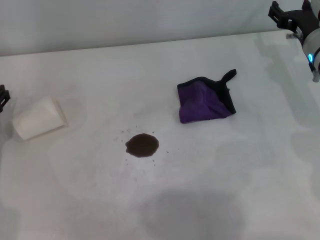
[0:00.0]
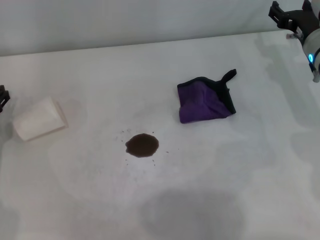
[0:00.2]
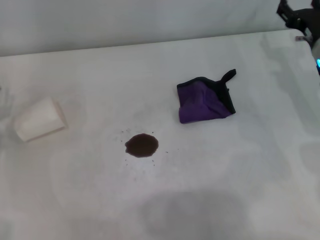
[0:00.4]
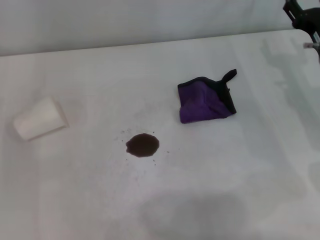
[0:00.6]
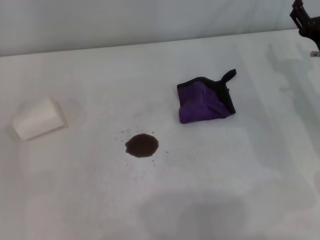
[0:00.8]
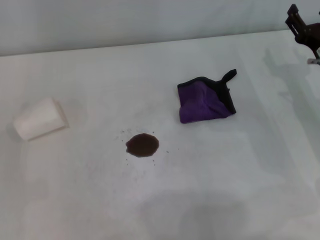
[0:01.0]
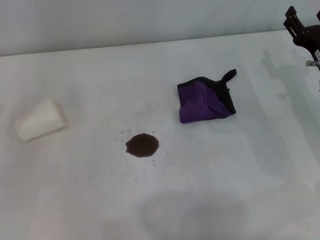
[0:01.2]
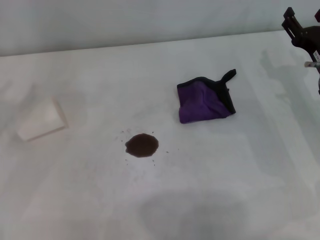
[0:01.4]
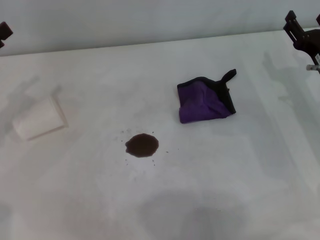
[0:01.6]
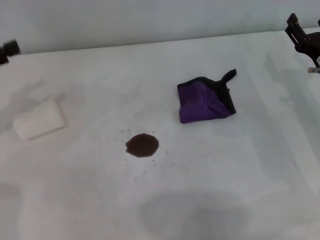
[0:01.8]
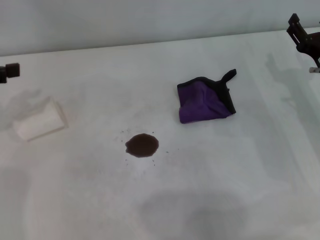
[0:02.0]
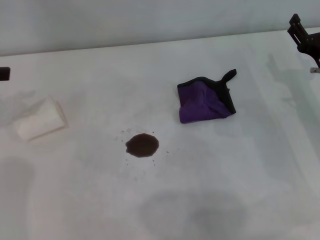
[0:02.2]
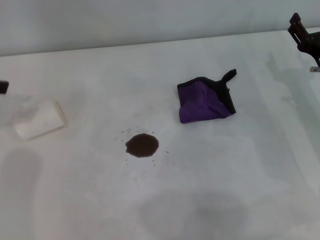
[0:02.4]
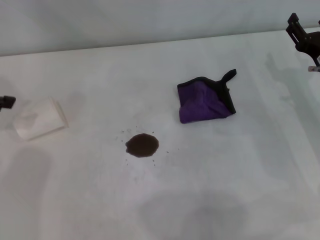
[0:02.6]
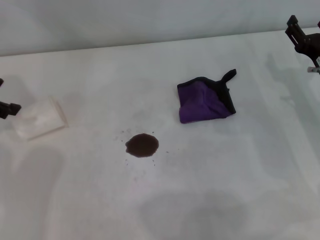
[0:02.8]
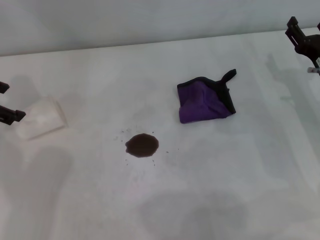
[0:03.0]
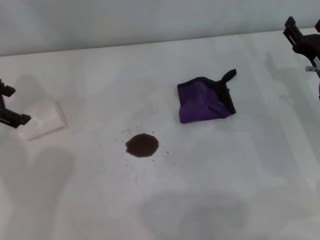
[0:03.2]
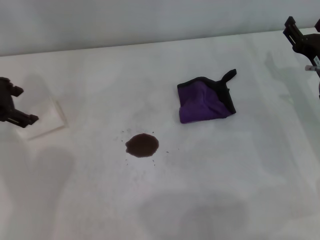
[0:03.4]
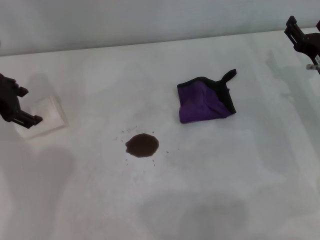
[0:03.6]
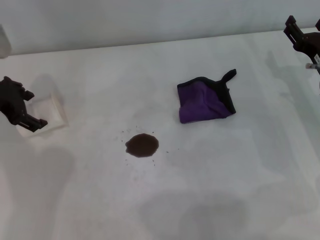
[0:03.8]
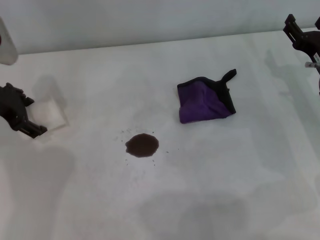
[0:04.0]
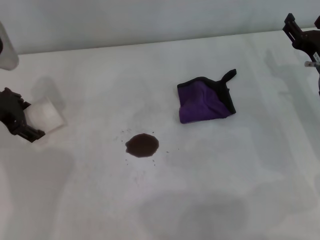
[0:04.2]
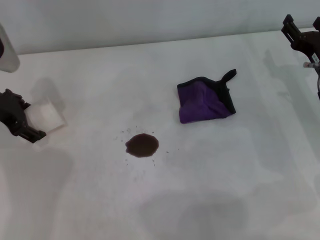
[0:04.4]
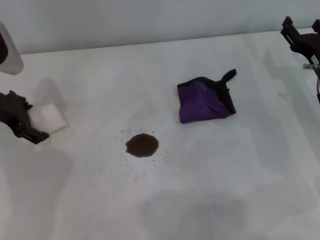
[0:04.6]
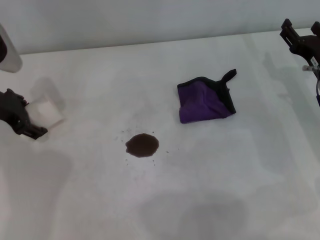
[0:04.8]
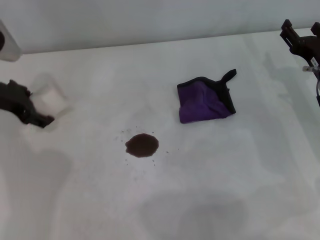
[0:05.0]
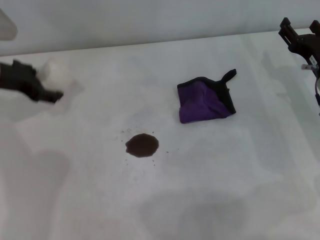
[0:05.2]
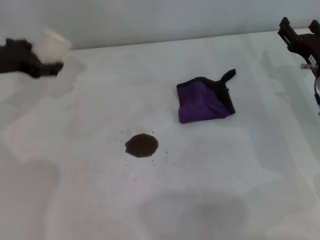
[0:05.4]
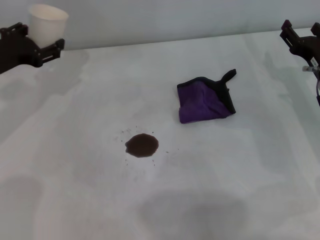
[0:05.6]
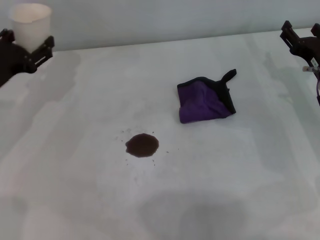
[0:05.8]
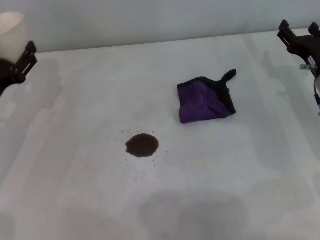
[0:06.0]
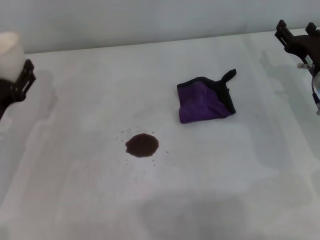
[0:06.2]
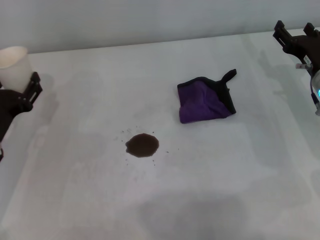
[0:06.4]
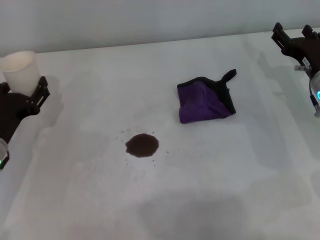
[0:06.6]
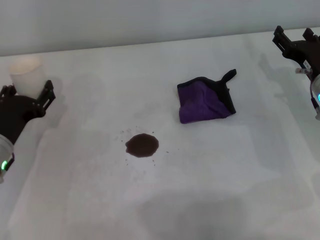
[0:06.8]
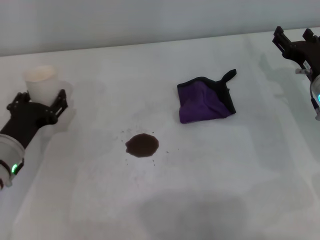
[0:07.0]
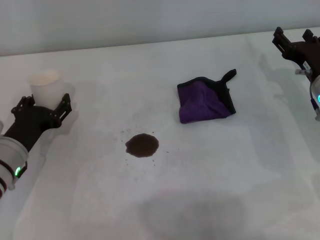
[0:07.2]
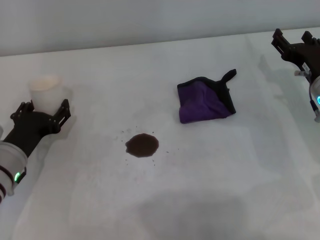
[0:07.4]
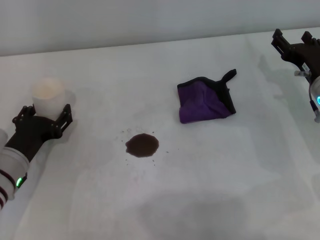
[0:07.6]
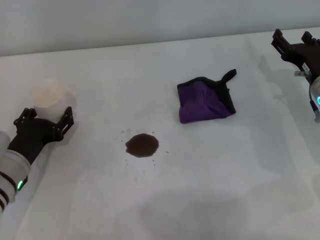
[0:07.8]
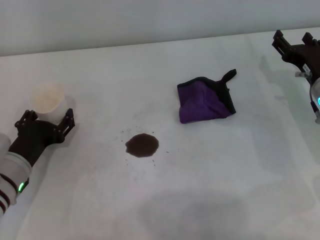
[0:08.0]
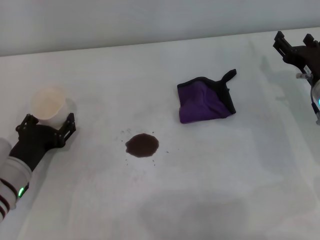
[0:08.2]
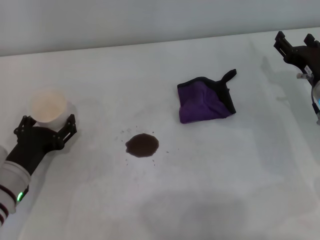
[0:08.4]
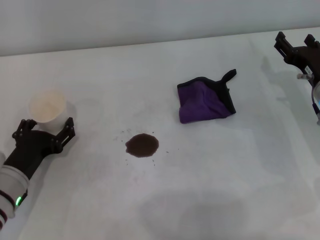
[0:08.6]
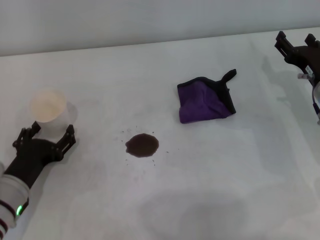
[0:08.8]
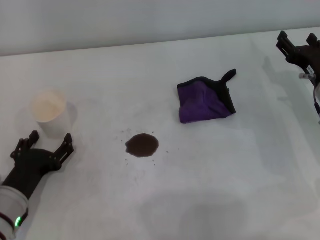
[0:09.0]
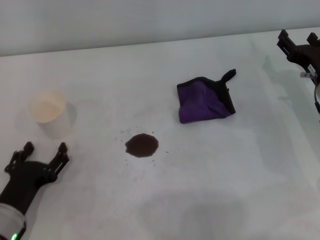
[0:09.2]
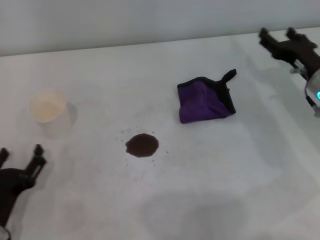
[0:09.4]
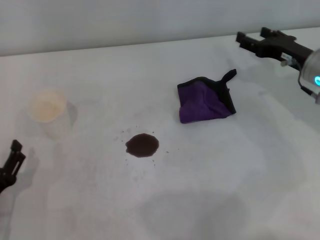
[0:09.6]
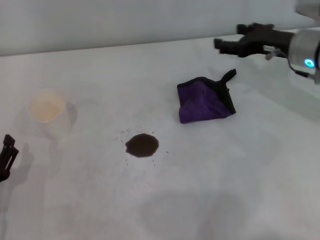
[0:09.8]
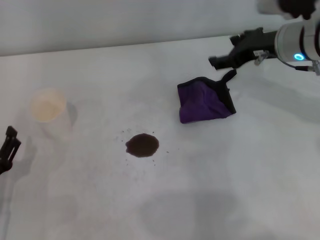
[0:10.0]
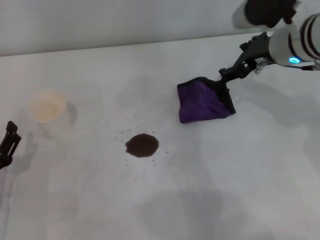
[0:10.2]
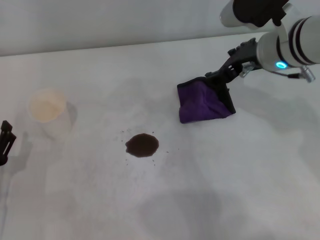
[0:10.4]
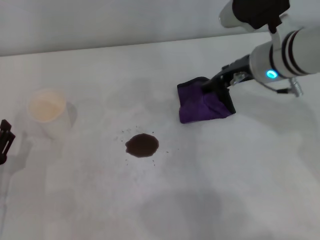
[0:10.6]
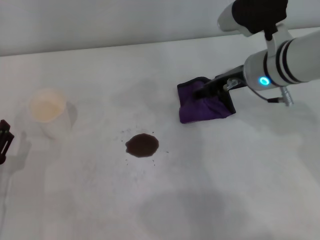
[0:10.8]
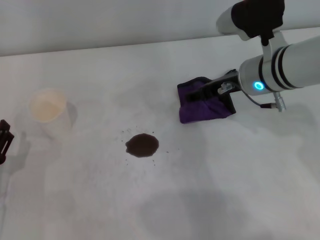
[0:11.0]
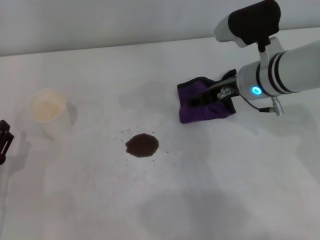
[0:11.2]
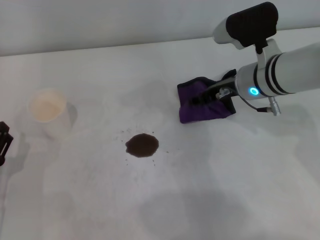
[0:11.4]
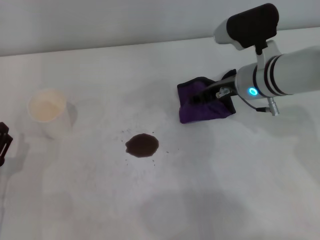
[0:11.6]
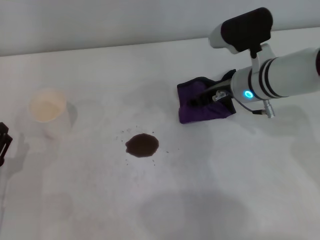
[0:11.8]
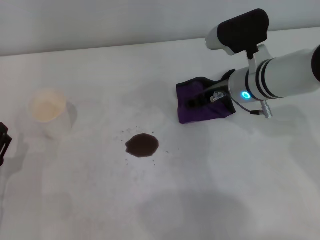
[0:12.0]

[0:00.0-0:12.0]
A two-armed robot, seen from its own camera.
Step, 0:00.0 to 0:04.6: Grasp the paper cup with the left gripper.
Step, 0:04.8 to 0:08.6: Stand the paper cup upright with the left gripper.
0:00.0 to 0:01.6: The left gripper is displaced upward by some 10 cm. The right gripper moves backward, some 10 cm.
0:01.6 to 0:03.0: The left gripper goes roughly 10 cm upward and forward.
0:03.0 to 0:04.4: The left gripper is displaced downward by approximately 5 cm.
0:04.4 to 0:06.0: The left gripper shifts about 10 cm downward and backward, and closes.
0:06.0 to 0:07.6: The left gripper moves downward, approximately 5 cm.
0:07.6 to 0:09.0: The left gripper is displaced backward by approximately 5 cm, and opens up.
0:09.0 to 0:10.4: The right gripper is displaced upward and to the left by approximately 15 cm. Meanwhile the left gripper ends up about 5 cm from where it was.
0:10.4 to 0:12.0: The right gripper is displaced downward by approximately 10 cm.

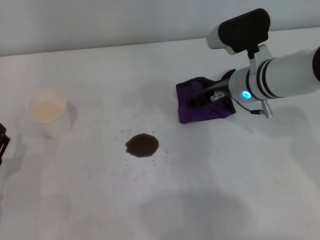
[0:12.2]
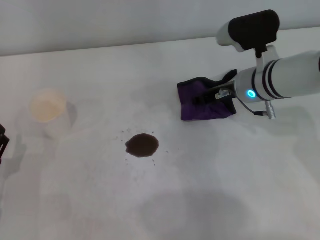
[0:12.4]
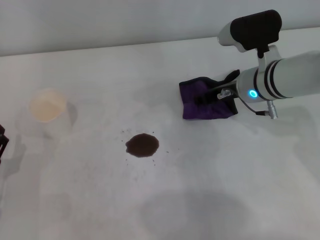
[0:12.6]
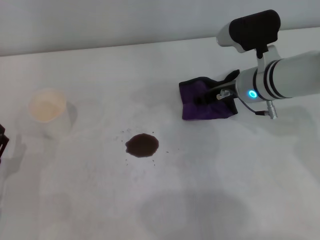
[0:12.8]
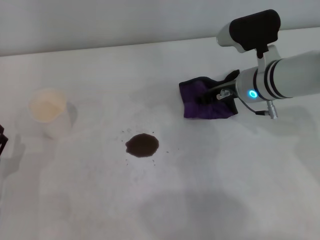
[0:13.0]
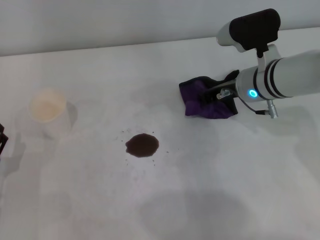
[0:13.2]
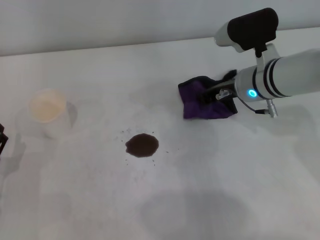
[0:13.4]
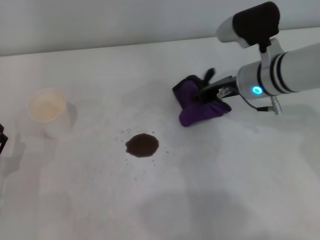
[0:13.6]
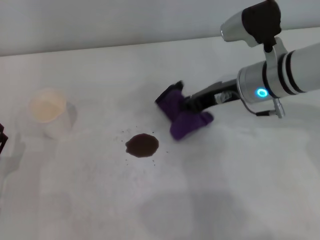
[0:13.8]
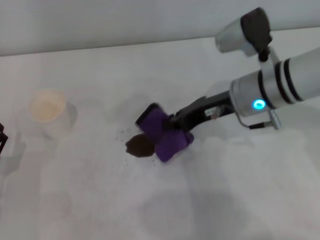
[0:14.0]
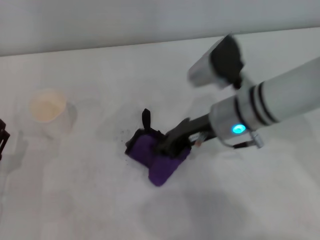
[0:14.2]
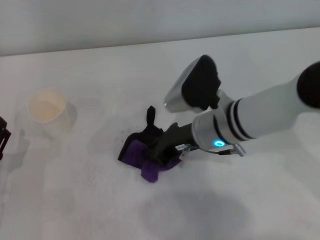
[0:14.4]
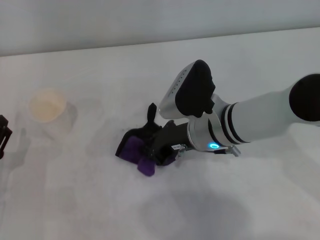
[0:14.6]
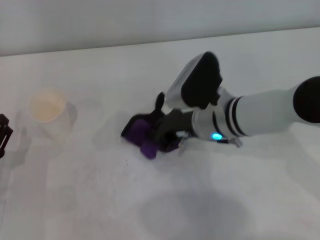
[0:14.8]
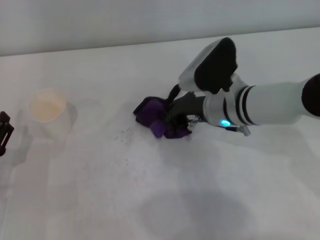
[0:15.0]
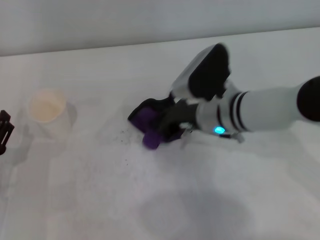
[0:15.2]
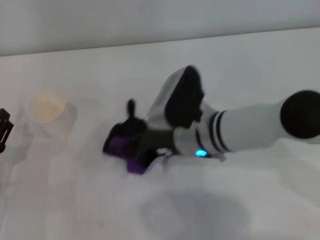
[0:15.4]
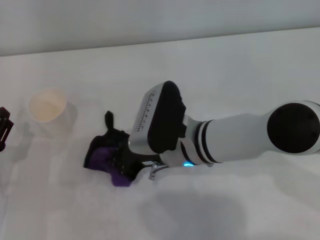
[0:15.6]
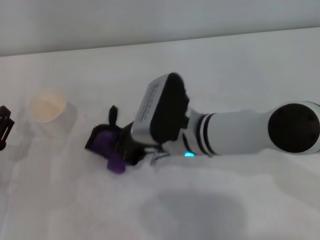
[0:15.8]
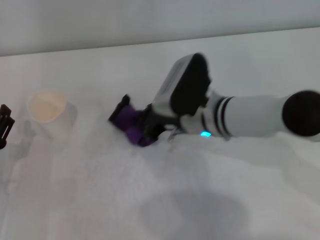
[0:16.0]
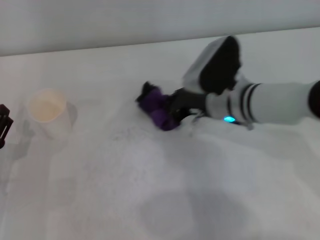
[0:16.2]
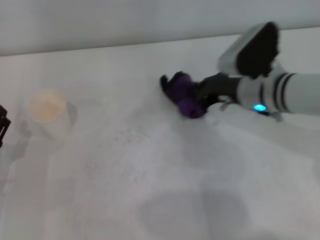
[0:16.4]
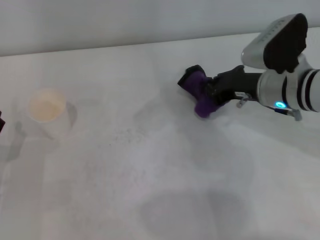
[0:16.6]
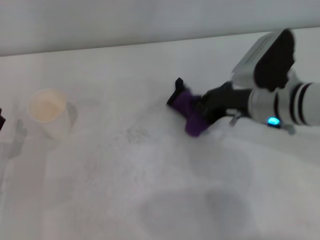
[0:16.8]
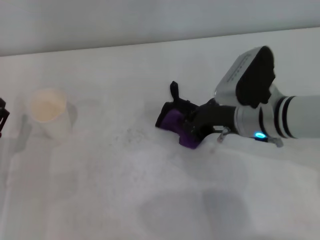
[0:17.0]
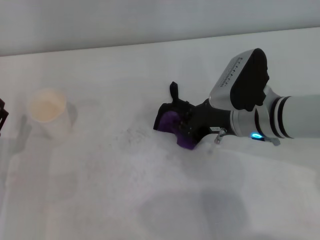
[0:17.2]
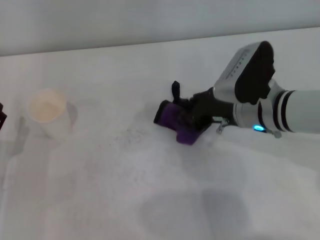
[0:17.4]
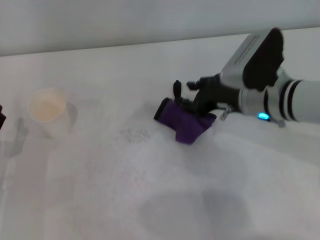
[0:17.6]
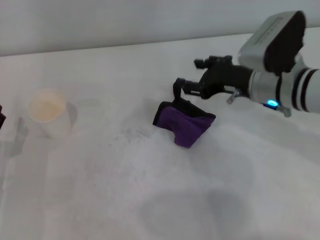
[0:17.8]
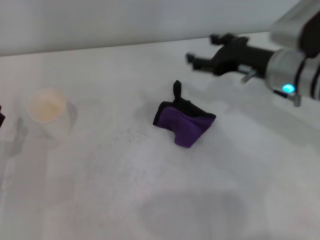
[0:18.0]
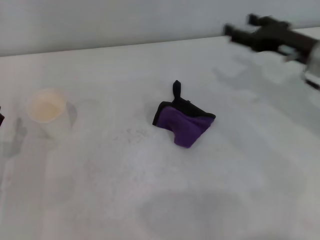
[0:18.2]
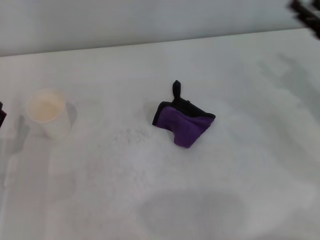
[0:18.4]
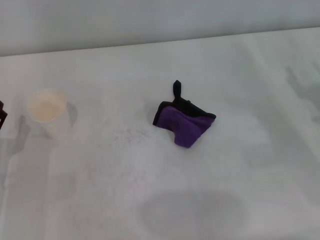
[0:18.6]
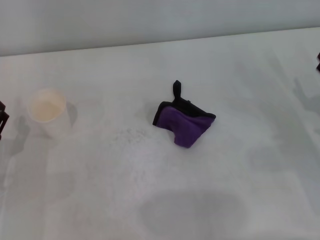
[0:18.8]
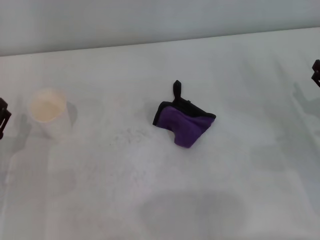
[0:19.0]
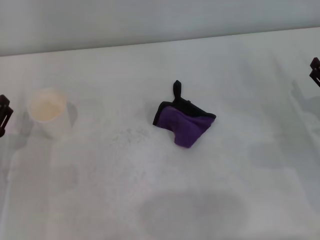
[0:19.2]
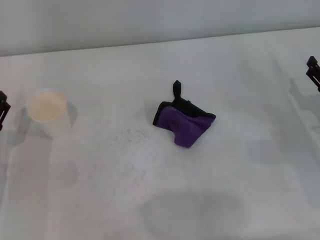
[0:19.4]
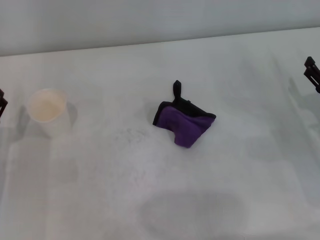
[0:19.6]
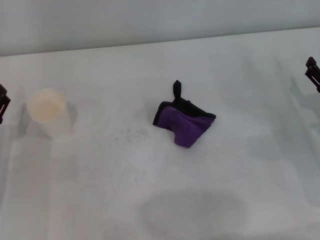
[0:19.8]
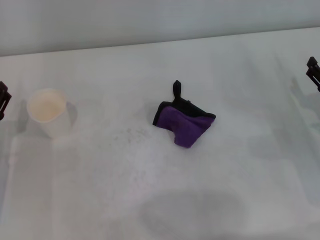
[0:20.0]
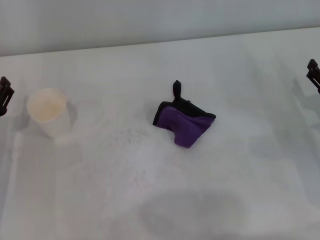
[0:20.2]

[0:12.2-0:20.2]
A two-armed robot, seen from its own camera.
Step, 0:12.6 to 0:16.4: Wipe the stains off the table with the right gripper.
Step, 0:16.6 to 0:17.4: Place the rag on the table with the right gripper.
0:12.2 to 0:13.8: The right gripper closes up.
0:13.8 to 0:15.4: The right gripper heads to the left, covering about 10 cm.
0:15.4 to 0:17.0: The right gripper is displaced to the right by about 10 cm.
0:17.0 to 0:18.6: The right gripper moves to the right, approximately 15 cm, and opens up.
